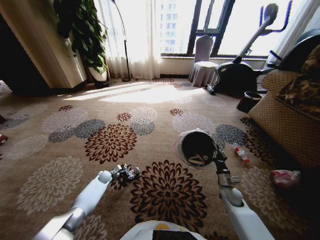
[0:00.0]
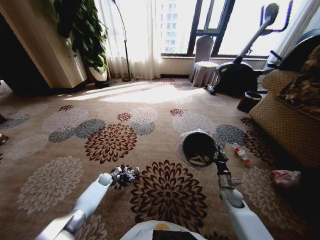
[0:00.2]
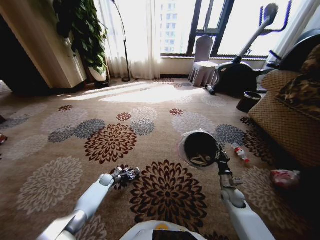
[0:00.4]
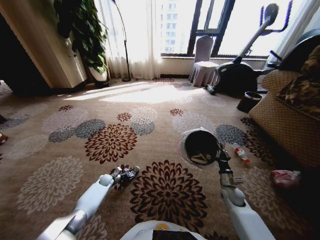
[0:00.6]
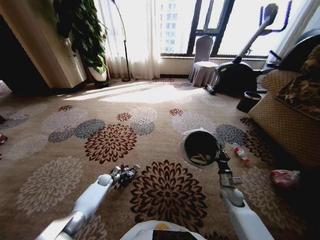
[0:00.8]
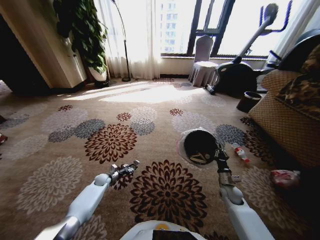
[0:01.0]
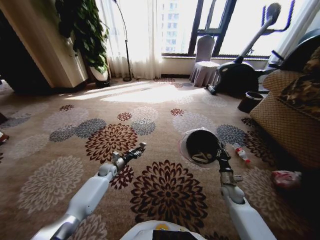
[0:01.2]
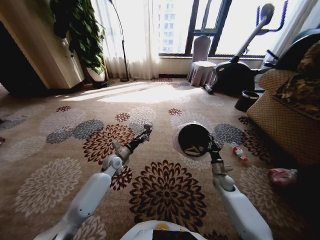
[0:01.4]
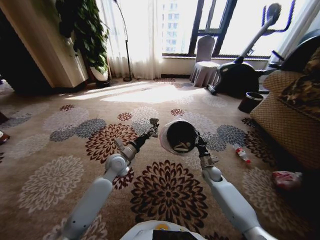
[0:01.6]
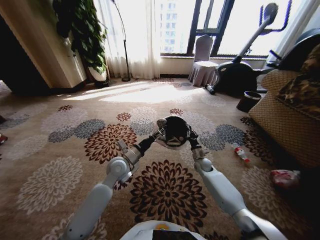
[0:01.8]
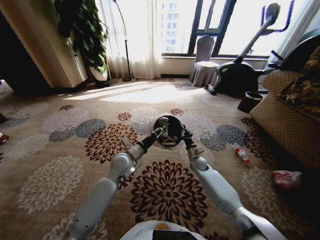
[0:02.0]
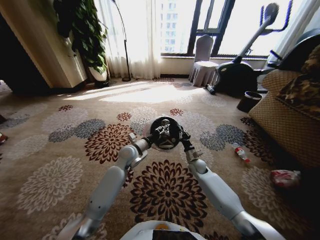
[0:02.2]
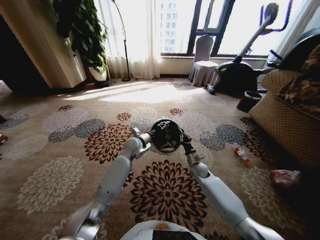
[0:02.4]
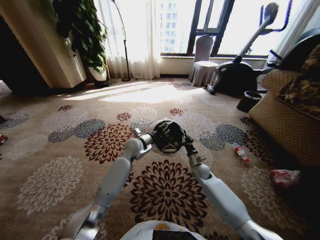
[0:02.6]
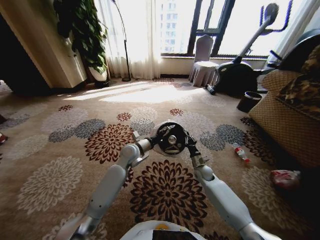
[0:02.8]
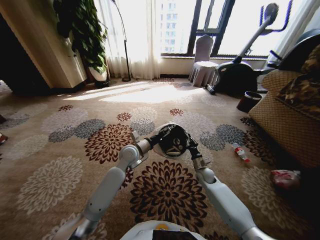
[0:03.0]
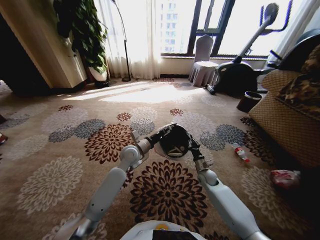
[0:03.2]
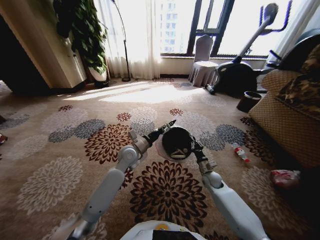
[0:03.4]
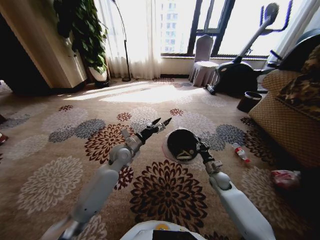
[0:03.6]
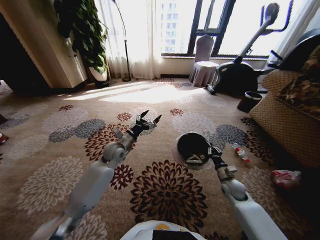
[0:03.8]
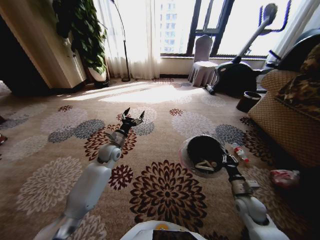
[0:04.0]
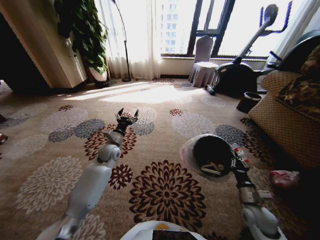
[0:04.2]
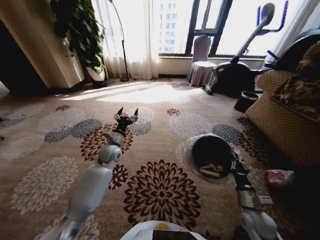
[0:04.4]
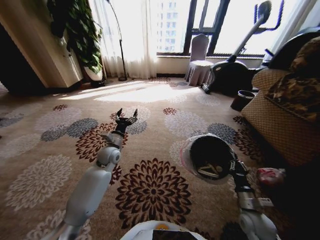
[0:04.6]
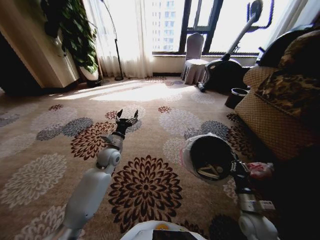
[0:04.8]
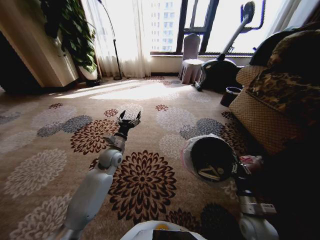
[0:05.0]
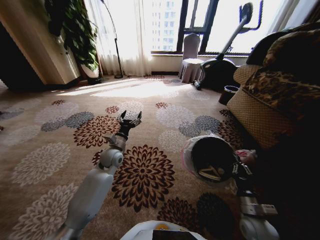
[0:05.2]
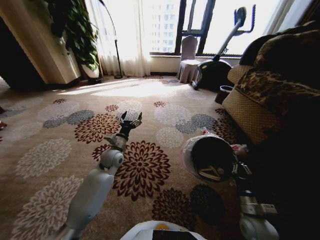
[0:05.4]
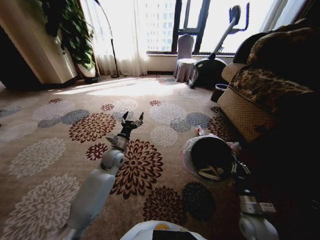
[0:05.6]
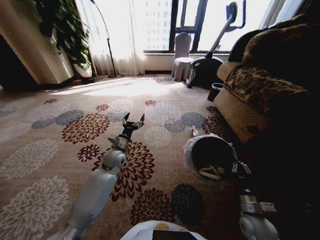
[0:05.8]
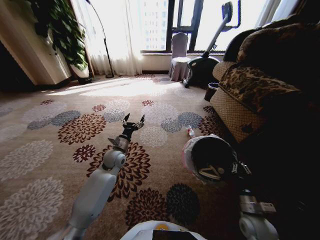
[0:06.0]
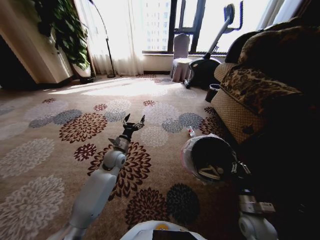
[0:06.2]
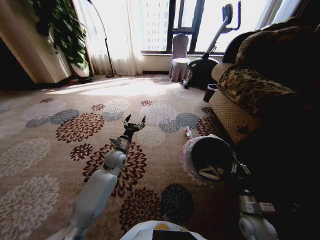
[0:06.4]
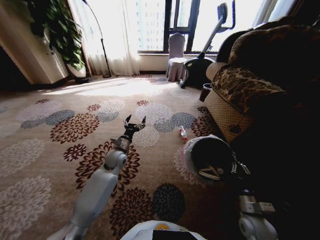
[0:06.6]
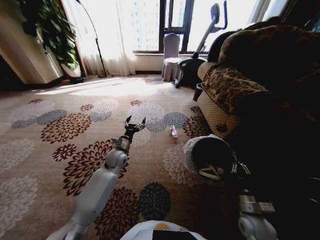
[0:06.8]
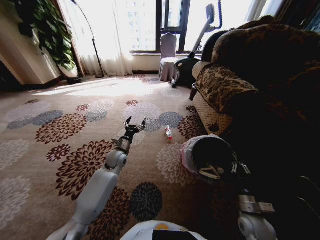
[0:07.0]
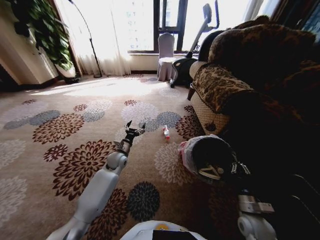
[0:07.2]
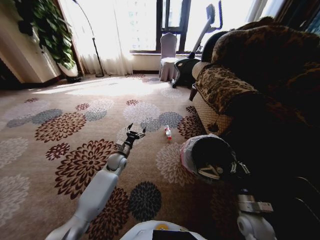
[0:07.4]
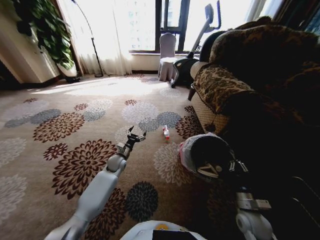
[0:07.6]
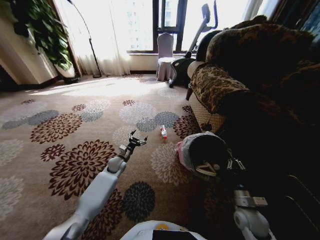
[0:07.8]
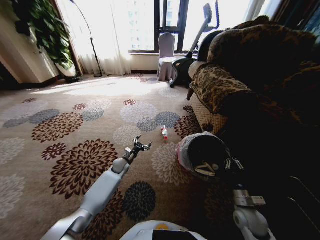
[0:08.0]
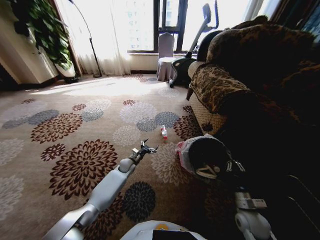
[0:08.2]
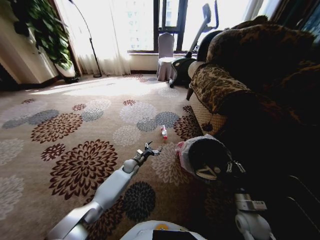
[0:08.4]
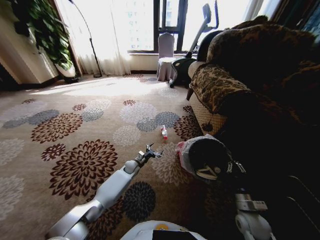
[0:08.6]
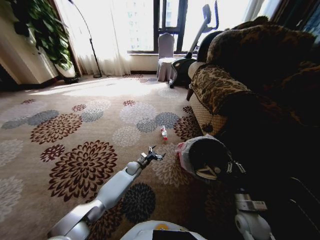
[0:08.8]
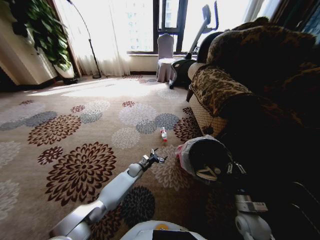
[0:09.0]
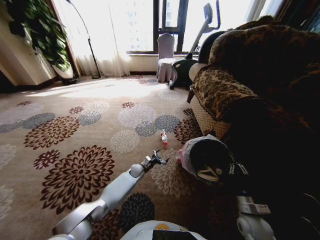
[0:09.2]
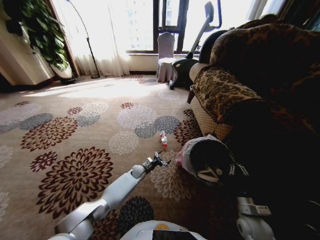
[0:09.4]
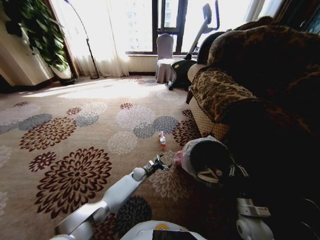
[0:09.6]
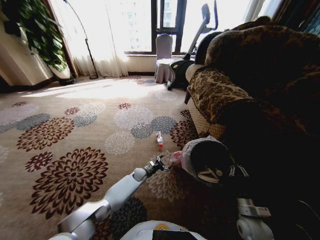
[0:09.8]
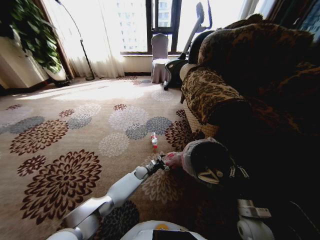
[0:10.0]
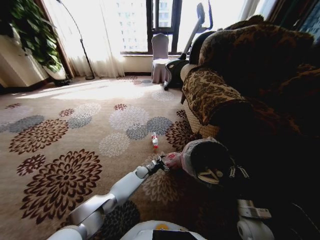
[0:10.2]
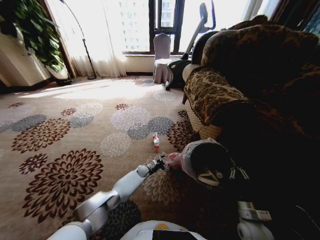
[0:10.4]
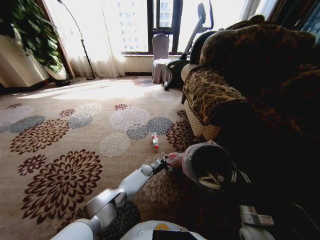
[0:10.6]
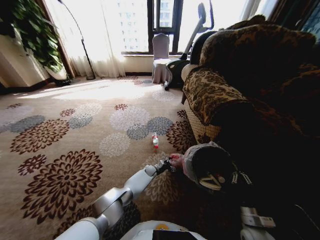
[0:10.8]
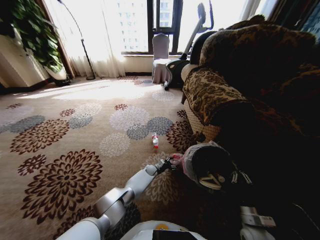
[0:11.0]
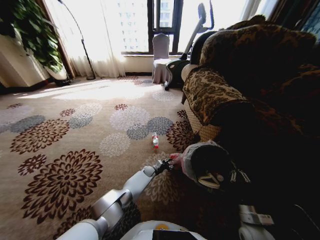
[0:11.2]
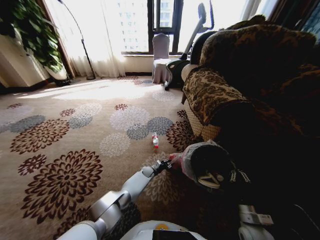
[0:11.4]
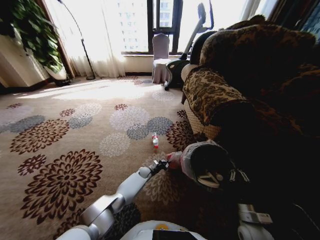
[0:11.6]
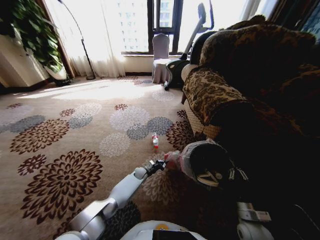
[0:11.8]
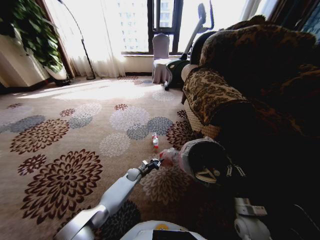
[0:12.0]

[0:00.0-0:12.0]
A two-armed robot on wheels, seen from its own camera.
Task of the whole recording: Pick up the trash from the ground and place it into the trash bin.
0:00.0 to 0:01.6: The right gripper shifts about 15 cm forward and to the left; the left gripper moves upward and to the right, some 35 cm, and closes.
0:01.6 to 0:03.0: The left gripper goes roughly 5 cm to the right, reaches about 10 cm forward, then returns, and opens.
0:03.0 to 0:04.4: The right gripper is displaced backward and to the right by approximately 25 cm, while the left gripper heads to the left, covering some 10 cm.
0:06.0 to 0:07.6: The left gripper goes about 10 cm downward.
0:07.6 to 0:09.0: The left gripper heads downward and to the right, covering about 15 cm.
0:09.0 to 0:10.4: The left gripper moves downward, some 5 cm.
0:10.4 to 0:12.0: The left gripper goes about 5 cm to the left, and closes.

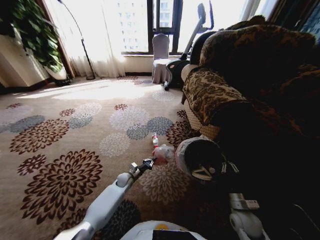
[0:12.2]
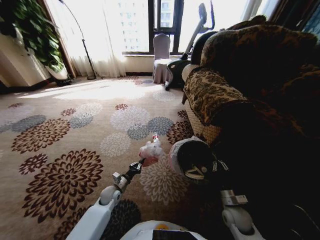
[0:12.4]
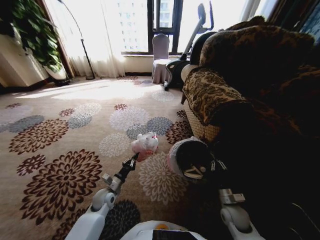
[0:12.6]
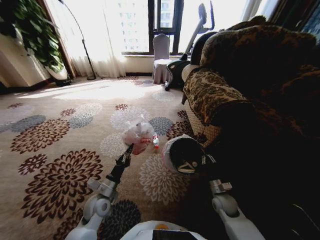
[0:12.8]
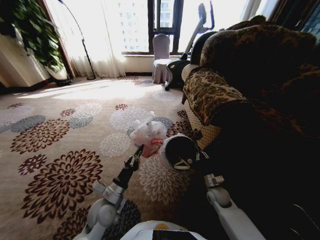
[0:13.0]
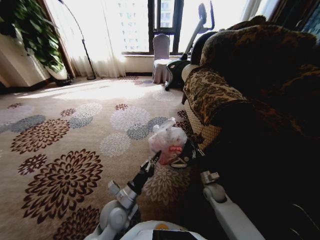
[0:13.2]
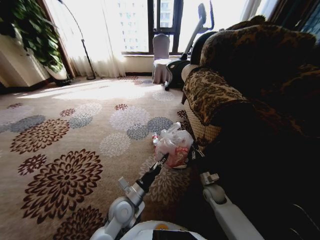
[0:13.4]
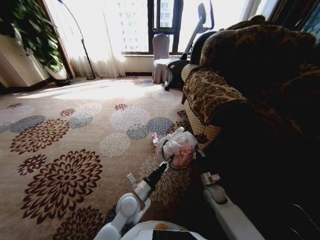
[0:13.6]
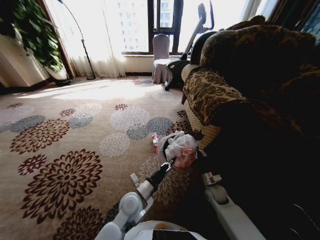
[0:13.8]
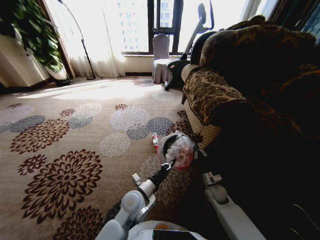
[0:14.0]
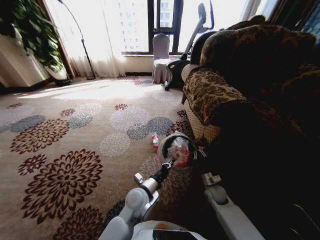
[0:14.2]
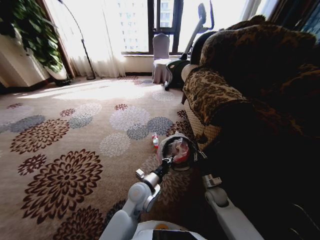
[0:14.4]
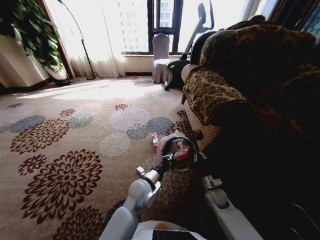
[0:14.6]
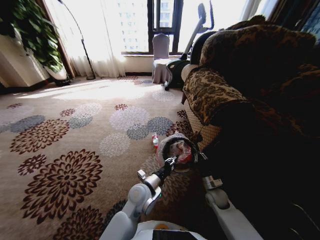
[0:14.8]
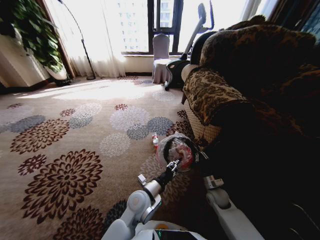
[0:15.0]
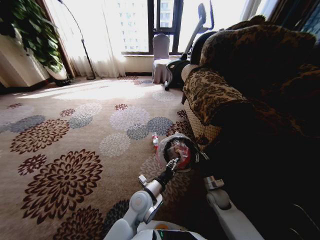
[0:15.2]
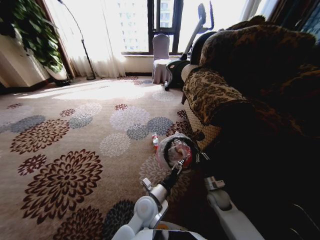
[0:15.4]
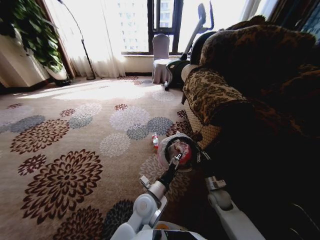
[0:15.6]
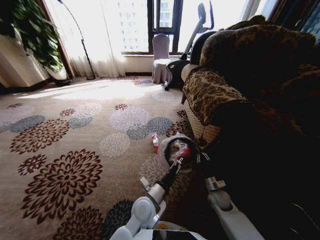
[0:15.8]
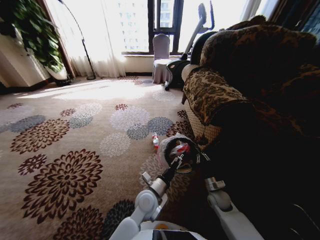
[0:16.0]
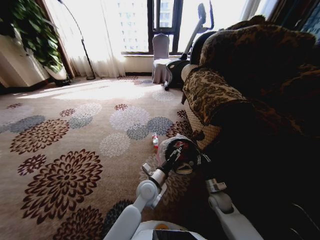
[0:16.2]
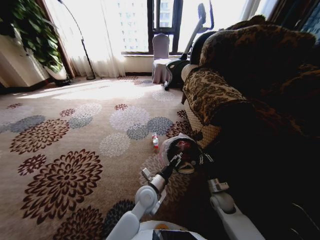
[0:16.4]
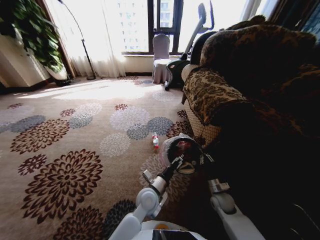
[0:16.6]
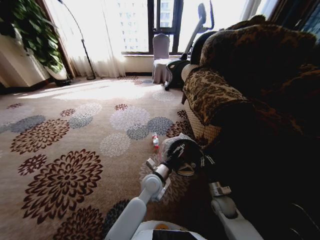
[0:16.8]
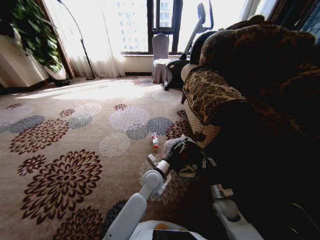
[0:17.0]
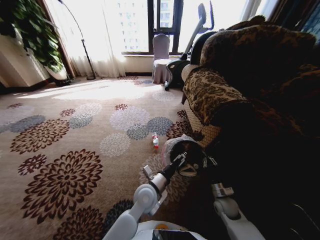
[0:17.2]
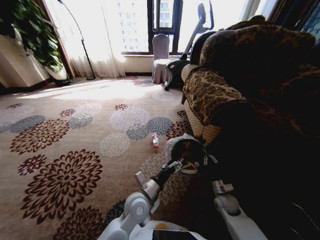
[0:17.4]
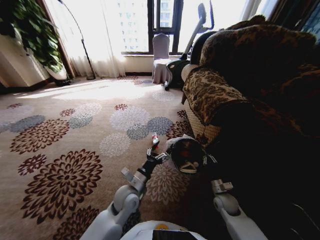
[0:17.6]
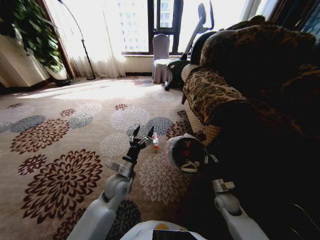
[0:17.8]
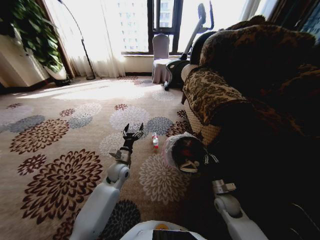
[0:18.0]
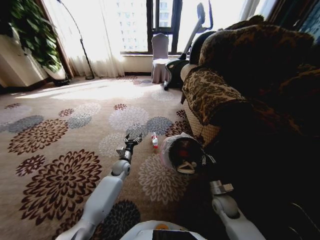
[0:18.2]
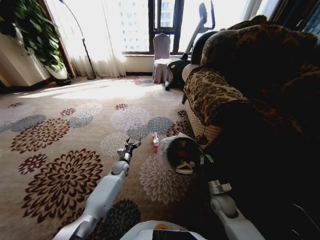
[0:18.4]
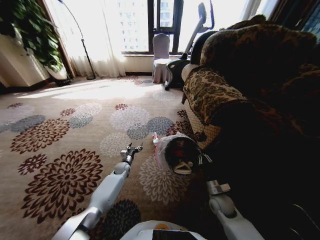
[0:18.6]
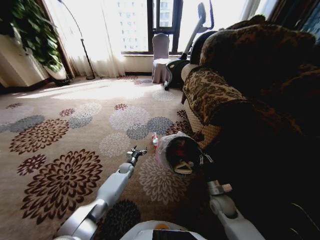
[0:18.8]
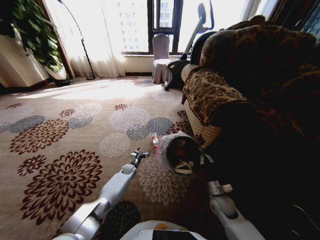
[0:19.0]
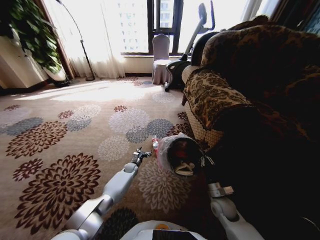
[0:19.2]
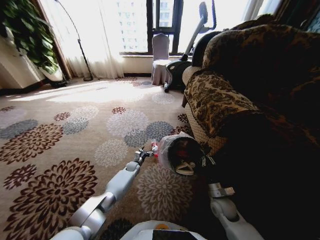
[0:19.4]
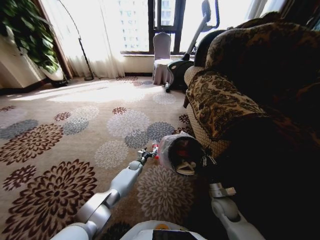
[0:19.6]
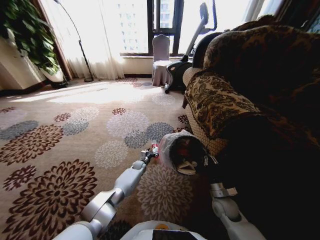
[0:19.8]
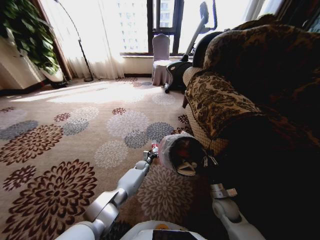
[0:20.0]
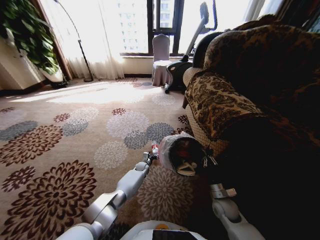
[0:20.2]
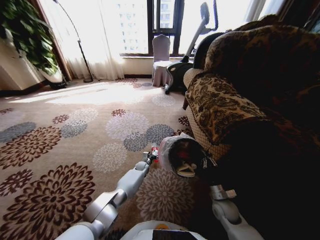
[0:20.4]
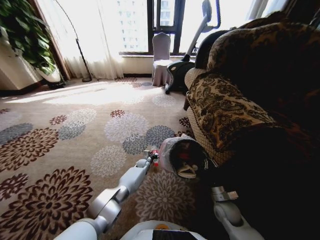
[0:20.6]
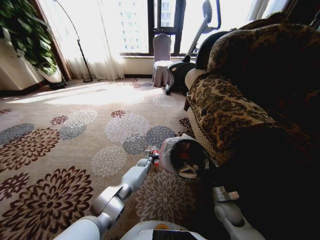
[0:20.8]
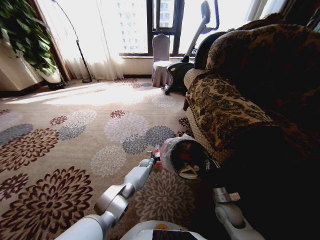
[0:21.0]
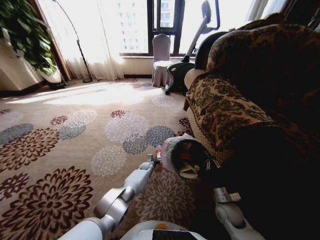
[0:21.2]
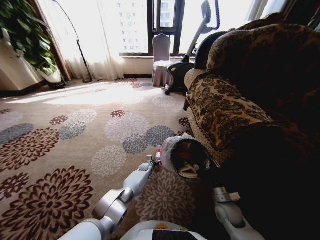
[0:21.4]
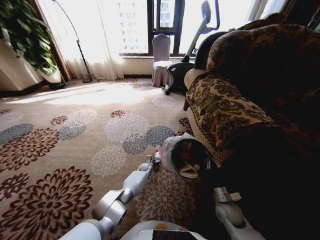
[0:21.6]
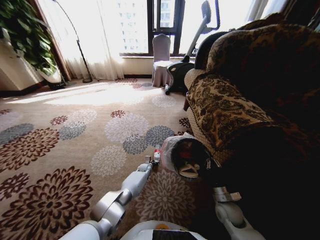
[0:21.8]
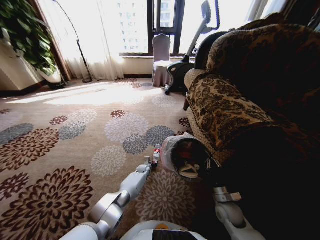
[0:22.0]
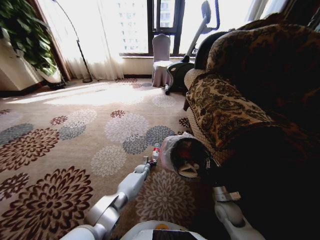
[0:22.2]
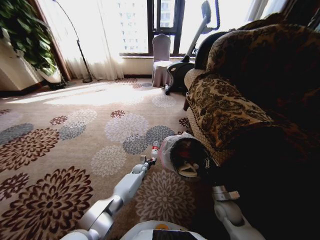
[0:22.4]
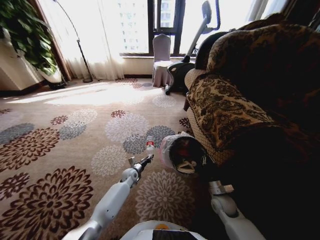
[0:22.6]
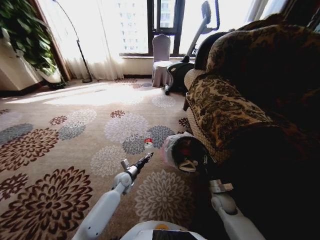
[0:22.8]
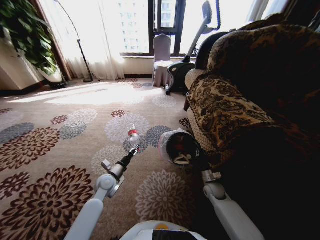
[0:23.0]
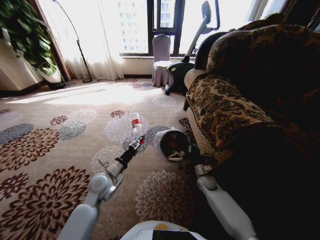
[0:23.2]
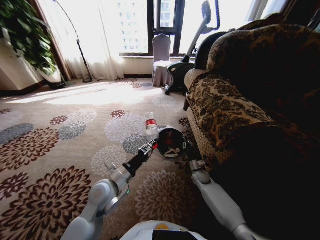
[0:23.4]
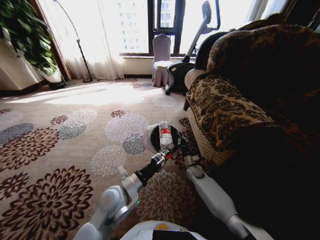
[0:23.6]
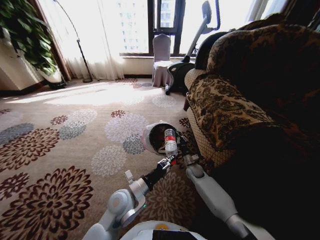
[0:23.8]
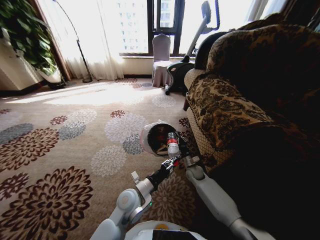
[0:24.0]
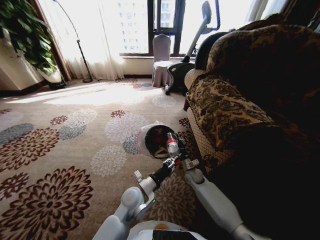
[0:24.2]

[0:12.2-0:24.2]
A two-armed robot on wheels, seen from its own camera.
Task of the whole recording: Pick up the trash from the ground and place it into the trash bin.
0:12.2 to 0:13.8: The left gripper heads upward, backward and to the right, covering roughly 25 cm. Meanwhile the right gripper heads forward and to the left, covering approximately 15 cm.
0:13.8 to 0:15.2: The left gripper opens up.
0:16.6 to 0:18.2: The left gripper swings forward and backward, roughly 20 cm each way, with 2 reversals.
0:18.2 to 0:19.8: The left gripper is displaced downward, to the right and forward by some 15 cm.
0:21.2 to 0:22.6: The left gripper heads to the left, backward and upward, covering approximately 10 cm, and closes its fingers.
0:22.6 to 0:24.2: The right gripper moves forward and to the left, about 15 cm. The left gripper travels backward and upward by some 25 cm.
